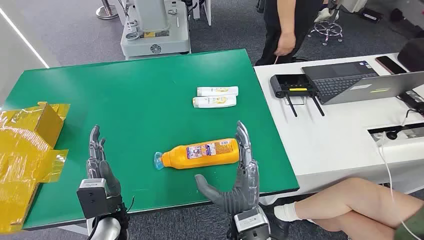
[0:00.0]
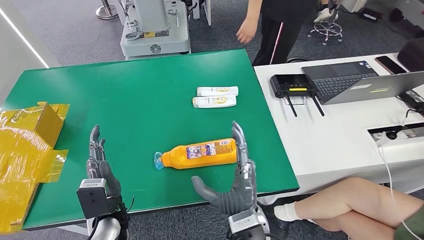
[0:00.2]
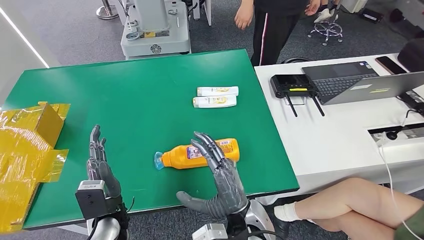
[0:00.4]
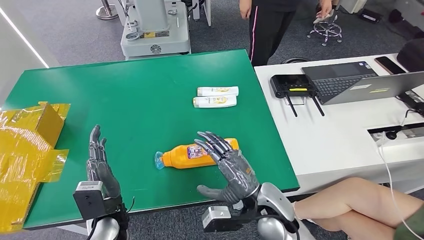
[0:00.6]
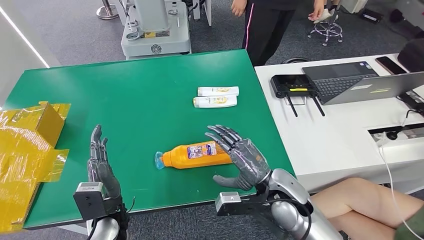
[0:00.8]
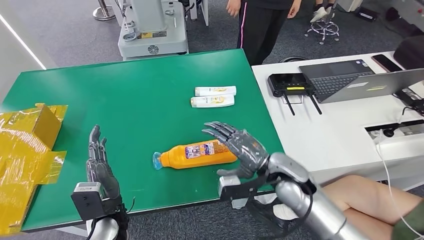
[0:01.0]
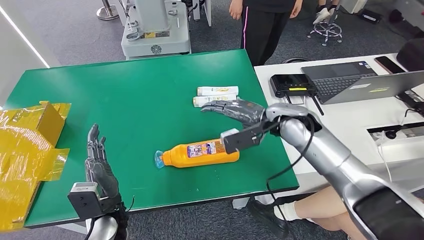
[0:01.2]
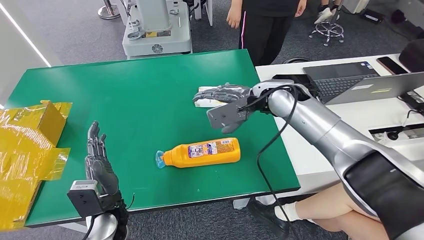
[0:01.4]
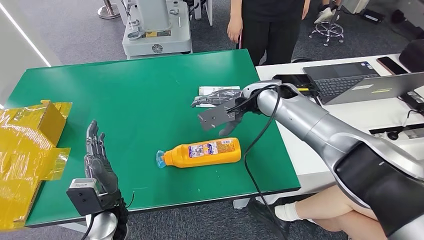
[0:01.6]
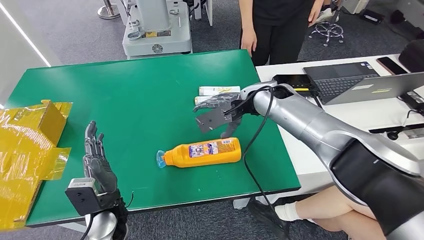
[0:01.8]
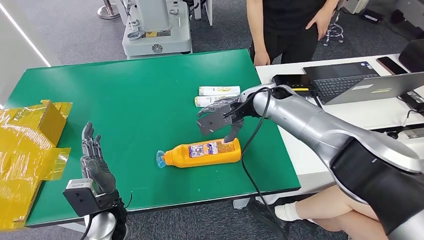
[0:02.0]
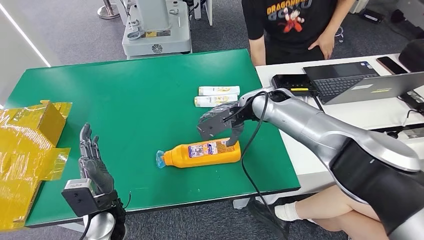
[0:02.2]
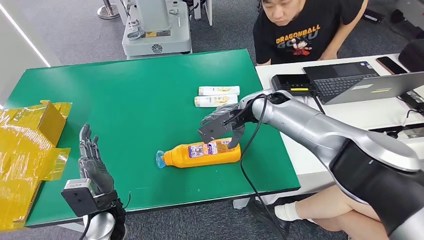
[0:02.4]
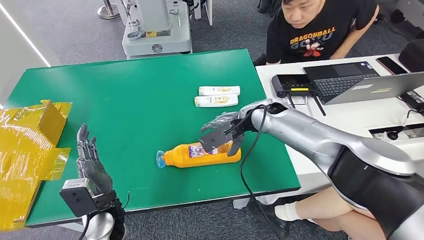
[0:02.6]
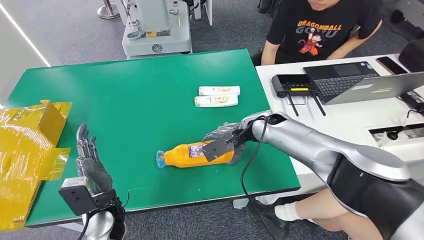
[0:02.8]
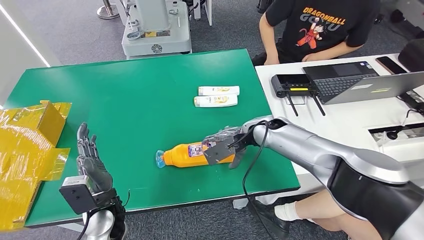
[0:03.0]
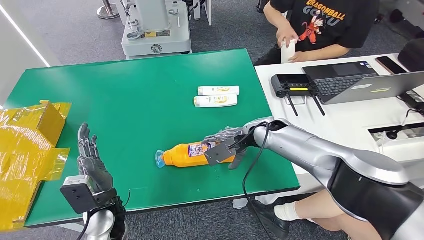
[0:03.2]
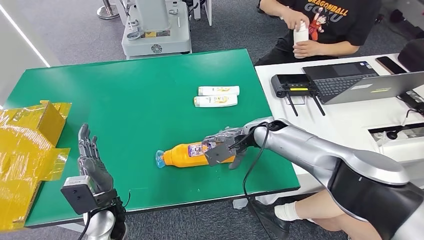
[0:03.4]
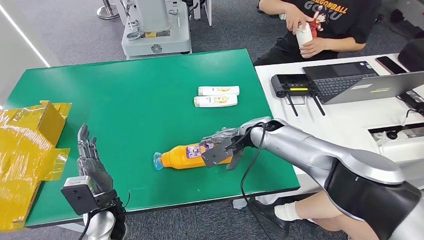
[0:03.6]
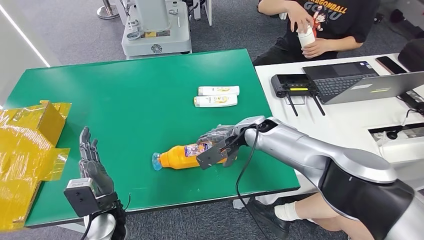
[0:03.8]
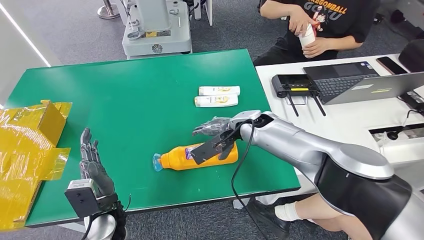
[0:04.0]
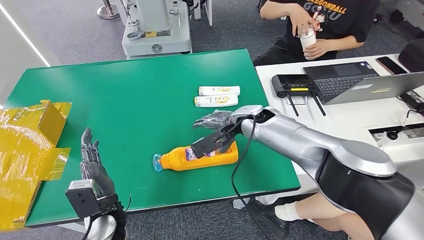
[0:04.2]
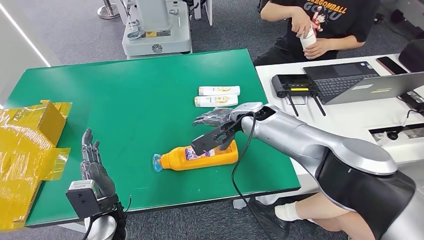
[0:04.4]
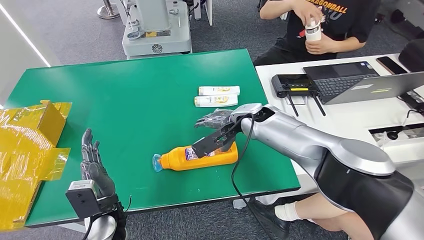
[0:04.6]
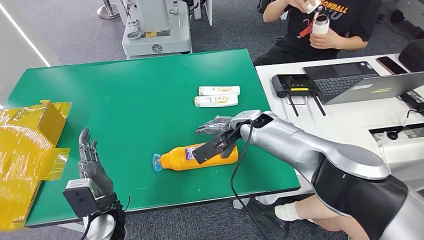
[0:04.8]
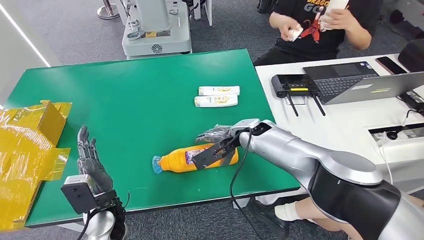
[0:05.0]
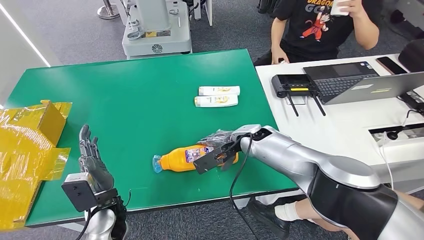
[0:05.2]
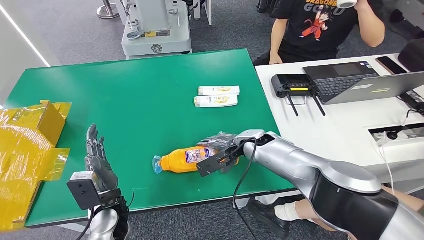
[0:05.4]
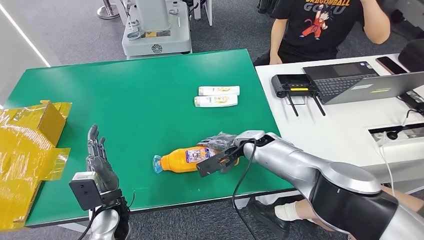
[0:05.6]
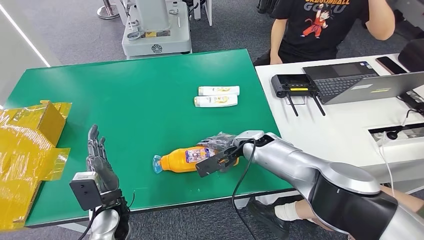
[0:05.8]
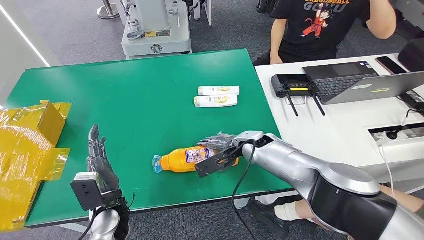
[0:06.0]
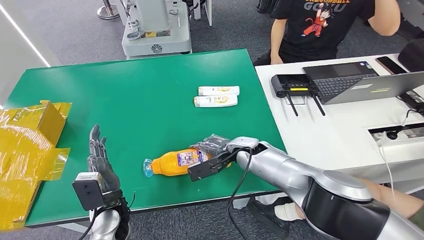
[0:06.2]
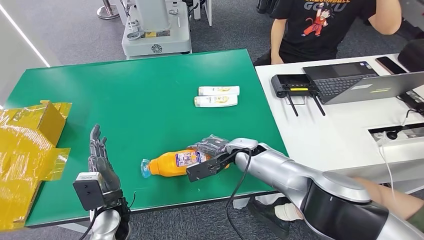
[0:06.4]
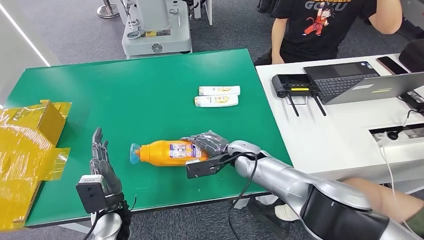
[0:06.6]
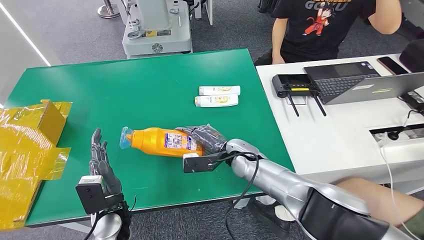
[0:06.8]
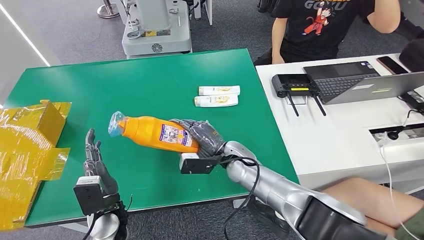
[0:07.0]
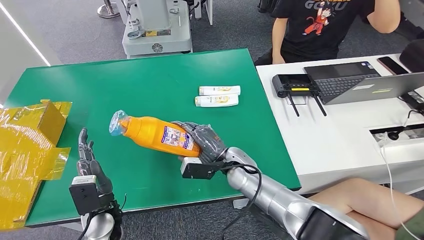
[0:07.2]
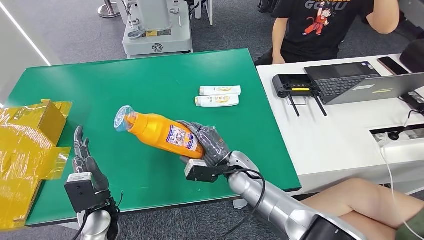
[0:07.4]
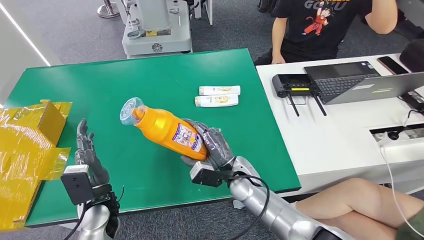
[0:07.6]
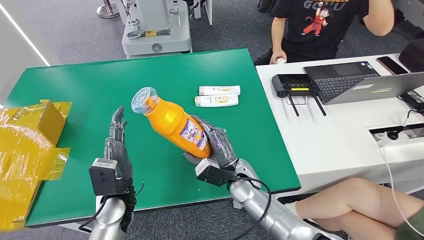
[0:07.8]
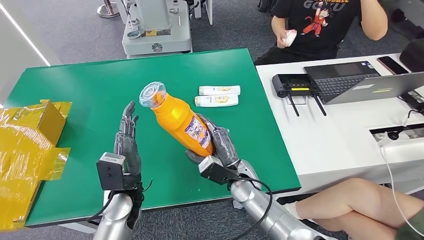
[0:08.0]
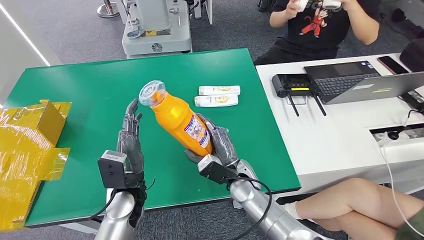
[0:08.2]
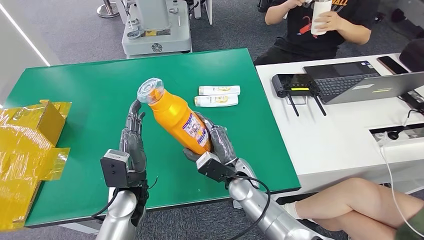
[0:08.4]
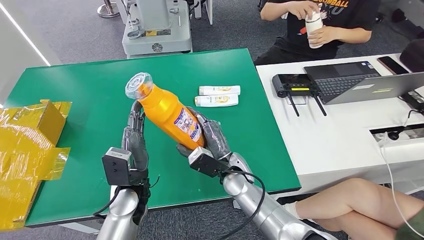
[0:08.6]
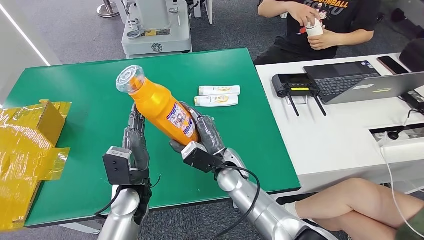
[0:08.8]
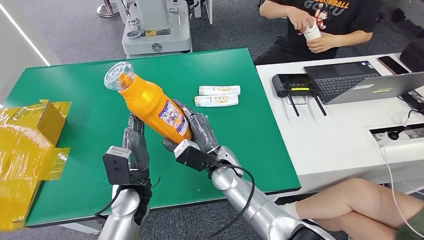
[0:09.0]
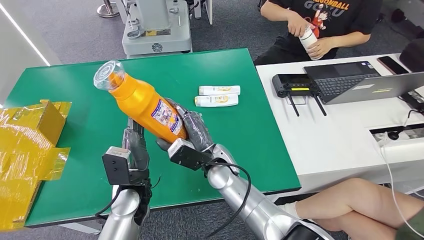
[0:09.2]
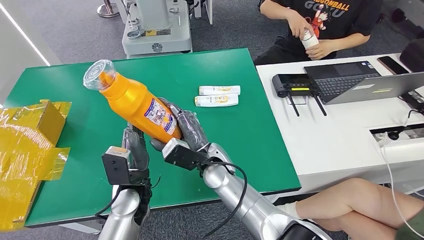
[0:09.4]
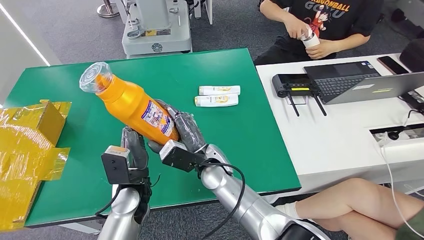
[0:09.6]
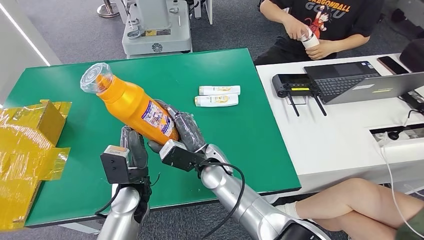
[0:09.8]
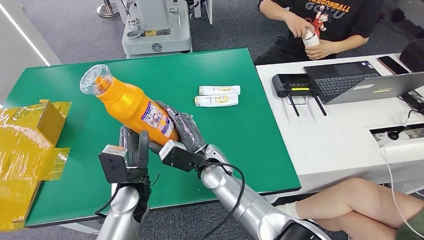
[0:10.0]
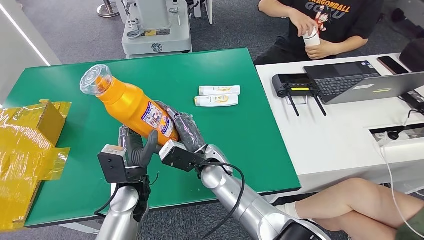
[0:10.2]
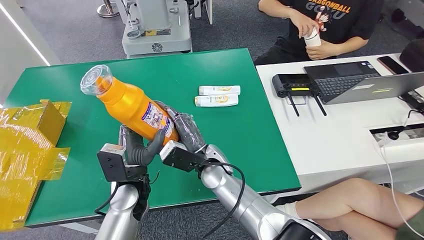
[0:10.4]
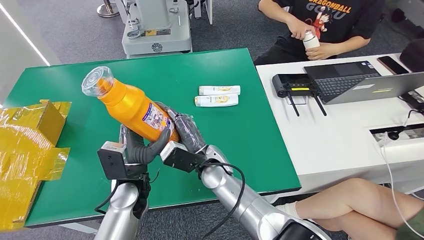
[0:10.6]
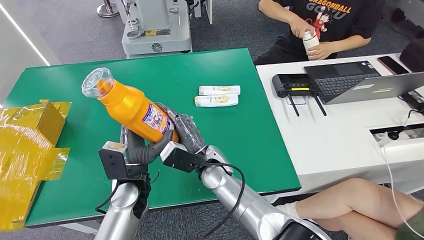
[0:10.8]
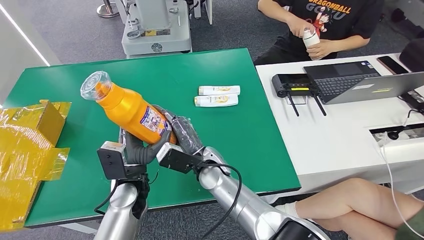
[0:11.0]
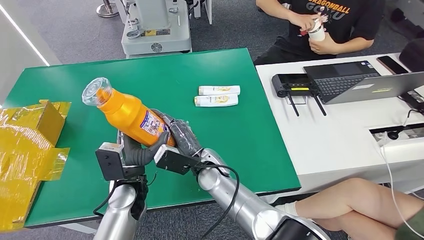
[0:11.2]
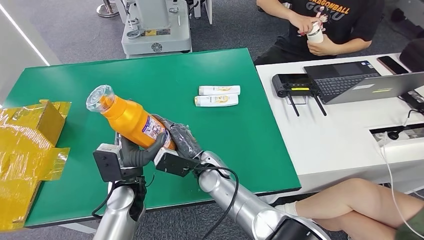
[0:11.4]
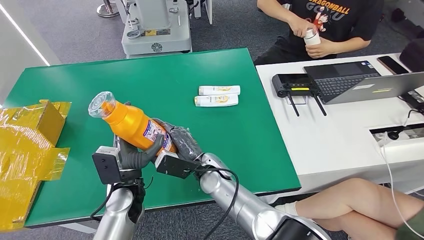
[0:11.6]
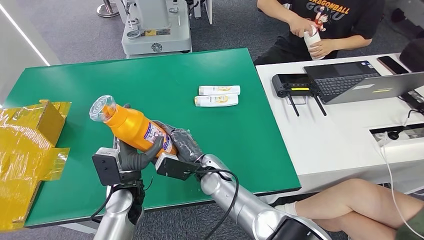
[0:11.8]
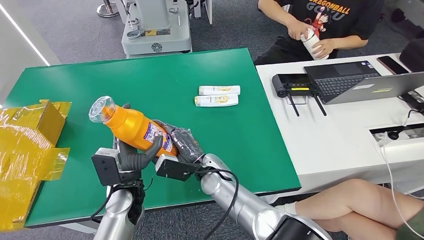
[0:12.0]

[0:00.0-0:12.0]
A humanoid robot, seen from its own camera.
Step, 0:00.0 to 0:07.0: Pick up the bottle from the table.
0:03.0 to 0:04.4: The right hand shifts by some 5 cm.
0:07.6 to 0:09.0: The right hand travels to the left by some 5 cm. The left hand moves to the right, about 10 cm.
0:09.0 to 0:12.0: The hands move only a little.

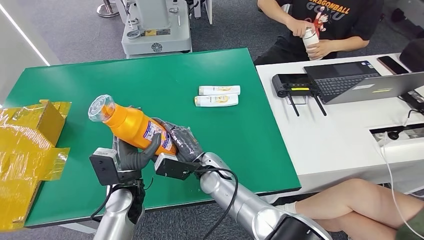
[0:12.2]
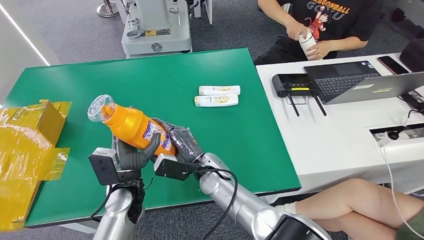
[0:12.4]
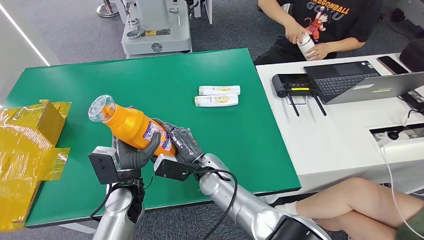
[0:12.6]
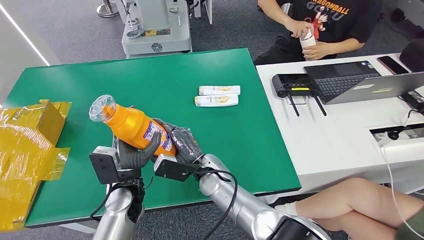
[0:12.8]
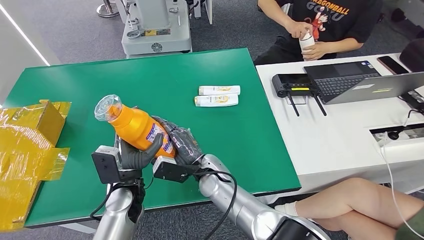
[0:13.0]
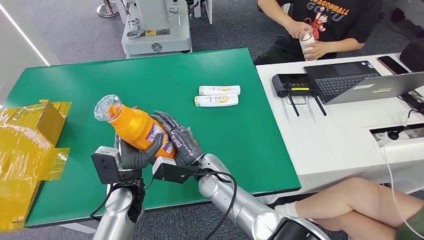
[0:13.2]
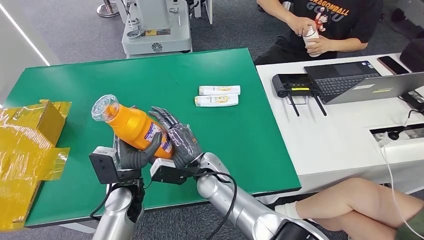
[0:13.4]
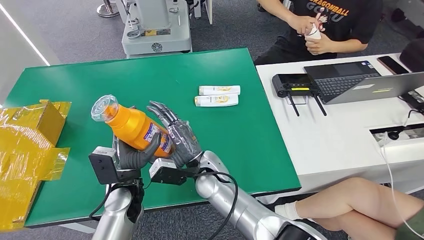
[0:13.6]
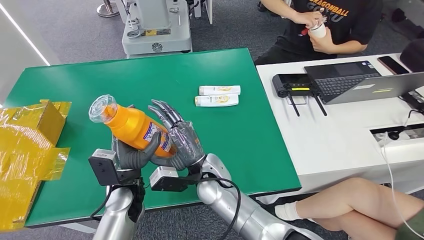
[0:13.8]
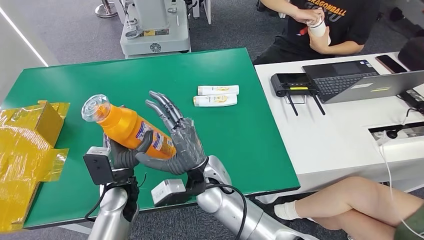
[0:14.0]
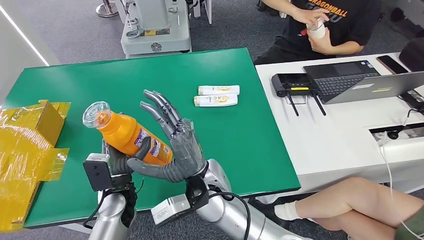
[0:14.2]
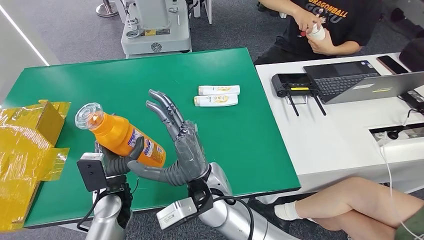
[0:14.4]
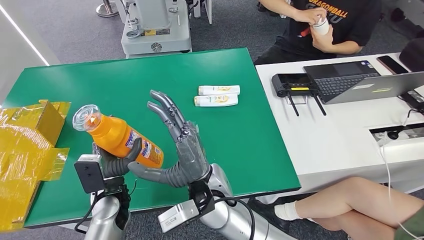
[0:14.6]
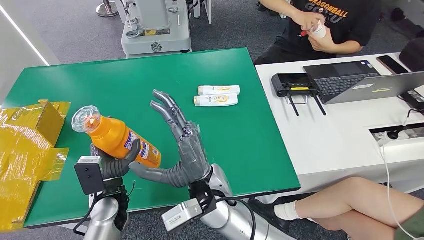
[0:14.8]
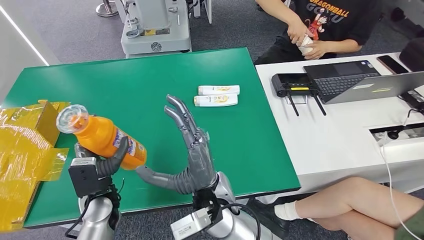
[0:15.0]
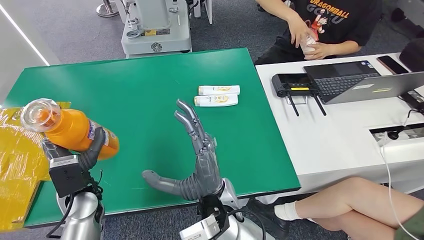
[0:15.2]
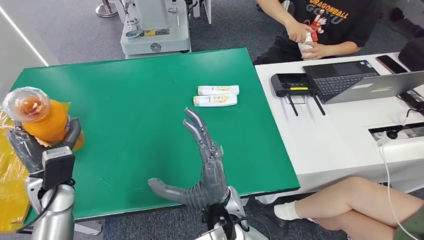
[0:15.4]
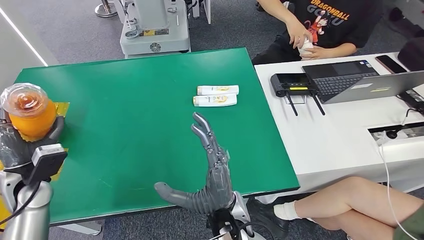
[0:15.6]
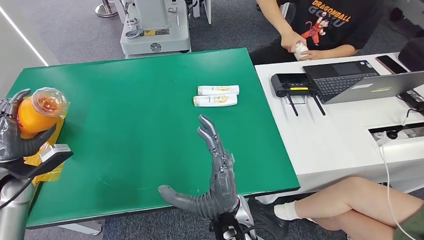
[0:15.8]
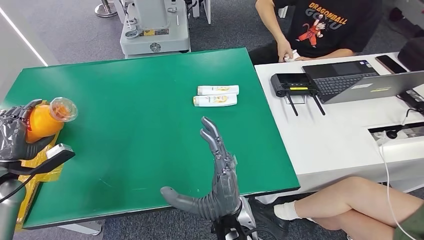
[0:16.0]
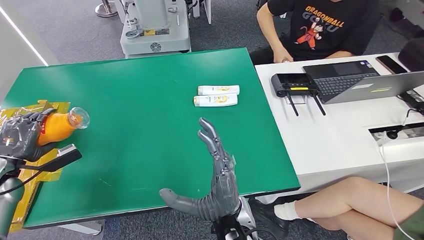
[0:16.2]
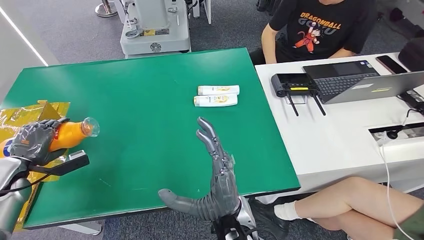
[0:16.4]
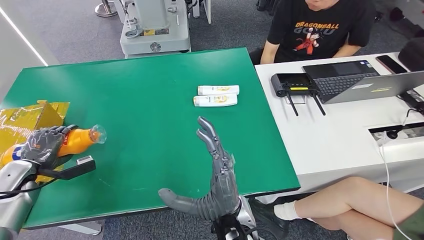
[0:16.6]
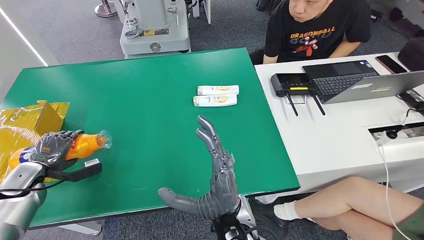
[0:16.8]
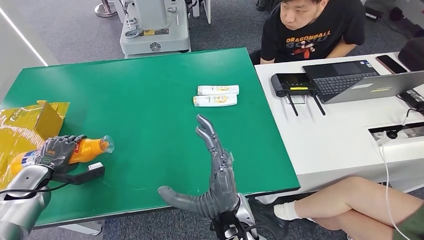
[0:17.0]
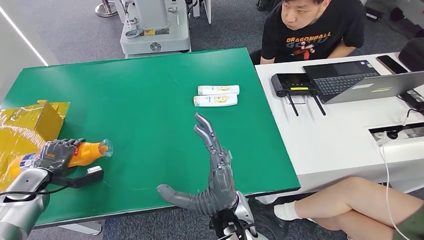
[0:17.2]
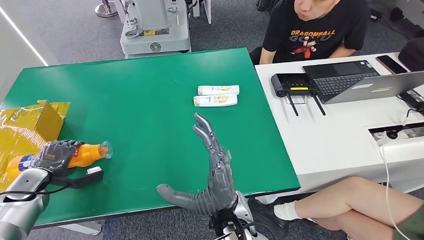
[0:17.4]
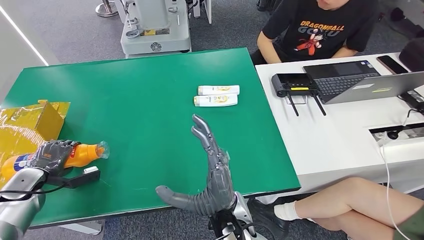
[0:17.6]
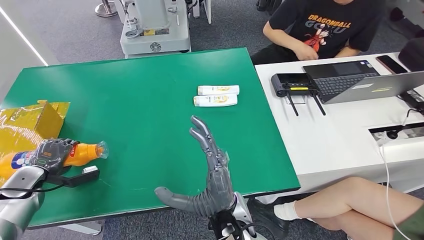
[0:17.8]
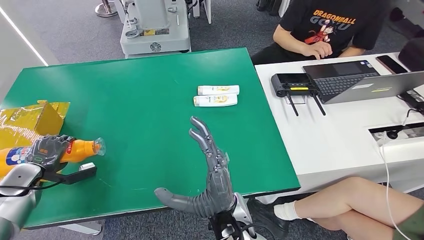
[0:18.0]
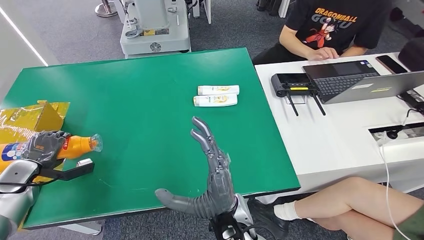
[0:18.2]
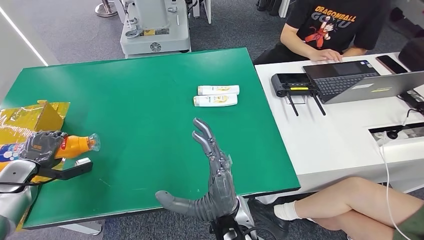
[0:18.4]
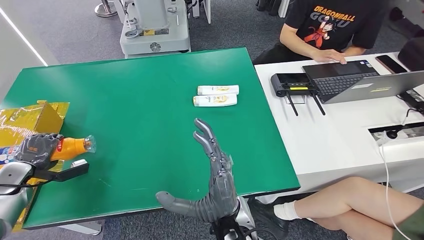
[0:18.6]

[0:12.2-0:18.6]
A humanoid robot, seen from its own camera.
0:12.2 to 0:13.8: The hands make only small movements.
0:15.4 to 0:17.0: The left hand heads to the left and downward, covering roughly 20 cm.
0:17.0 to 0:18.6: There are only small adjustments of the hands.
